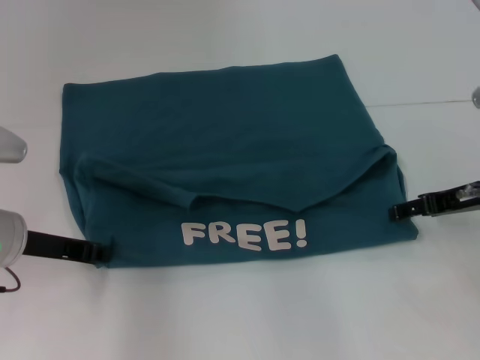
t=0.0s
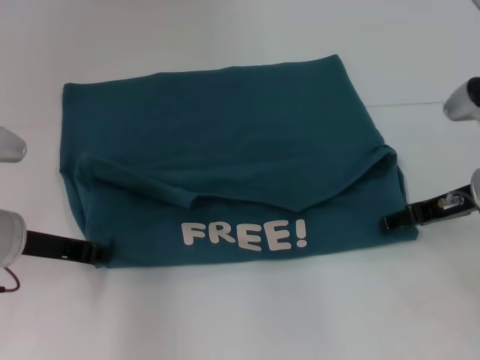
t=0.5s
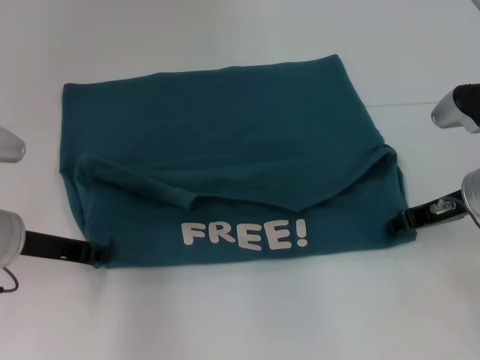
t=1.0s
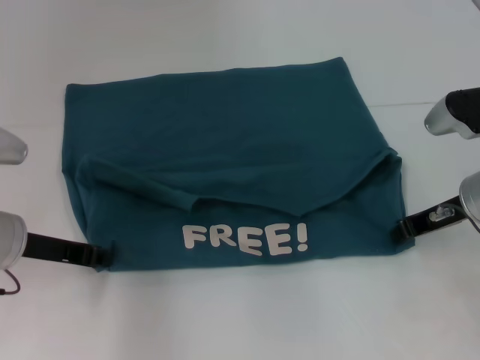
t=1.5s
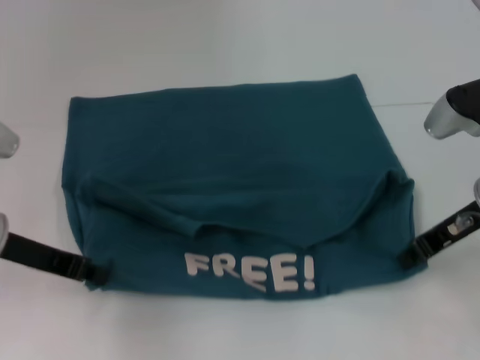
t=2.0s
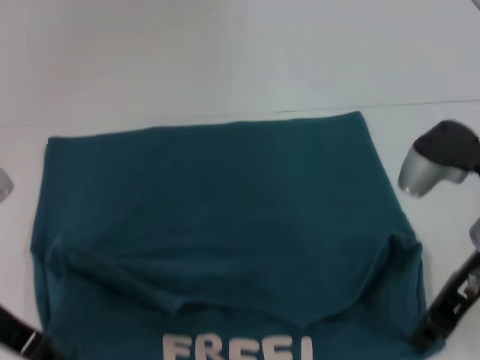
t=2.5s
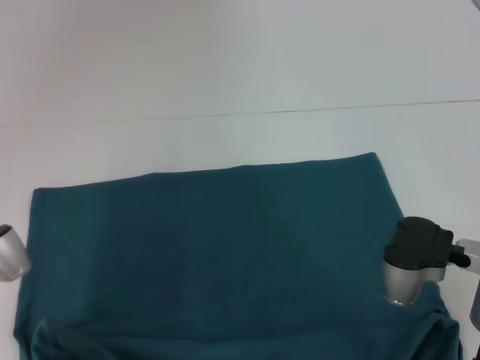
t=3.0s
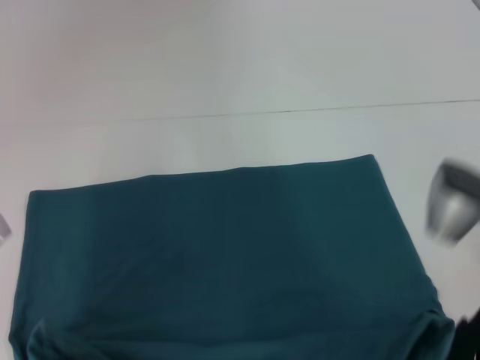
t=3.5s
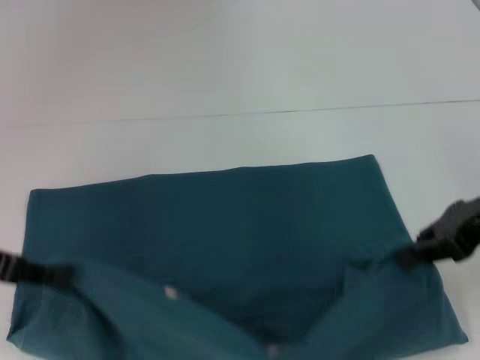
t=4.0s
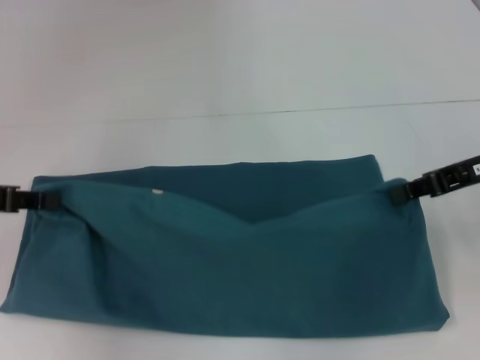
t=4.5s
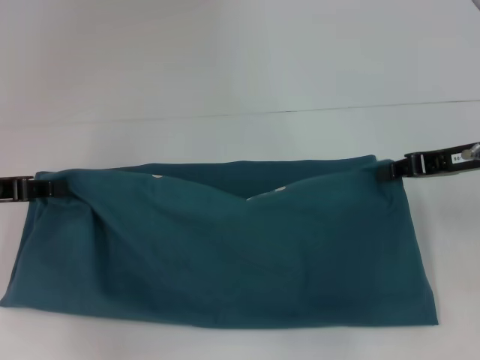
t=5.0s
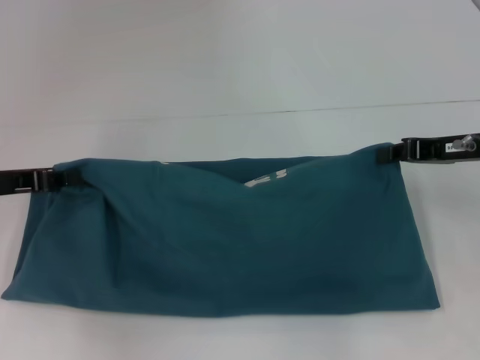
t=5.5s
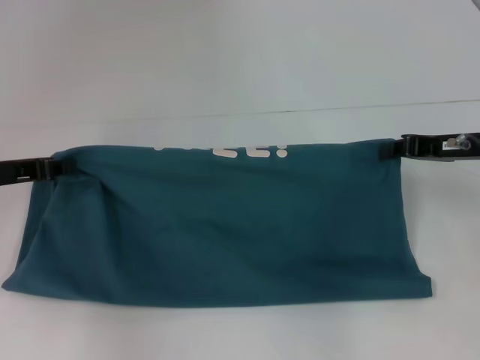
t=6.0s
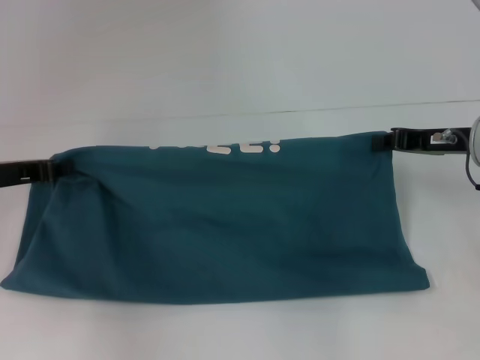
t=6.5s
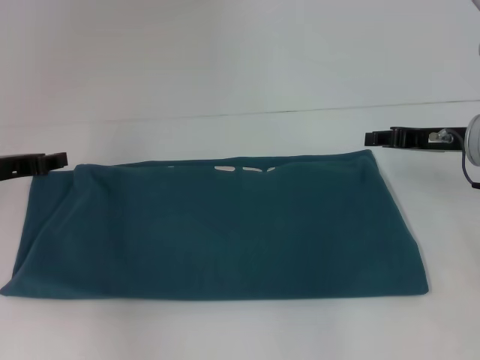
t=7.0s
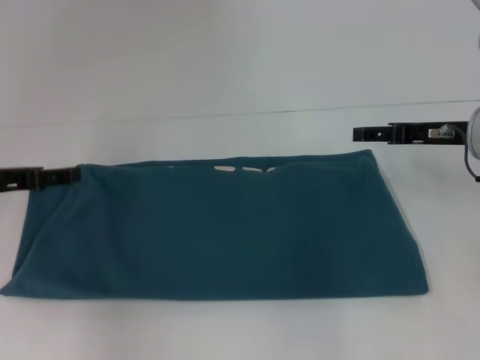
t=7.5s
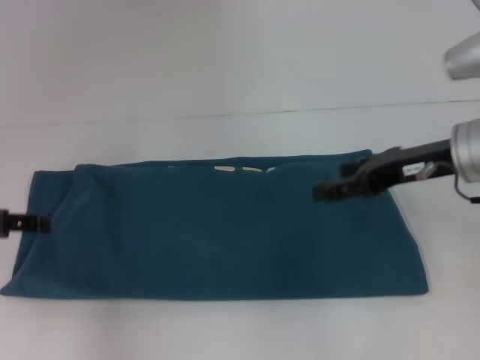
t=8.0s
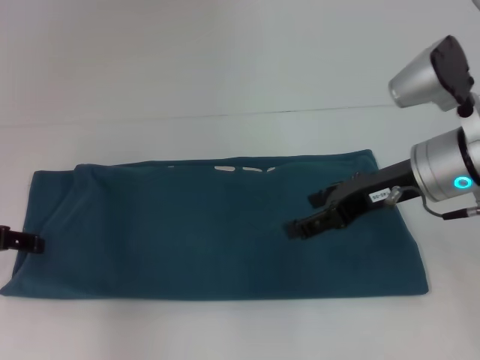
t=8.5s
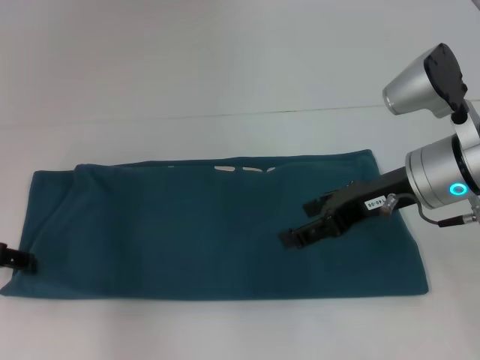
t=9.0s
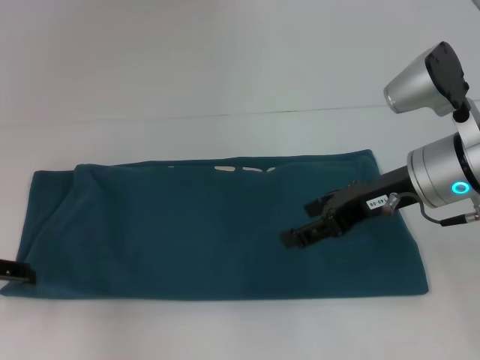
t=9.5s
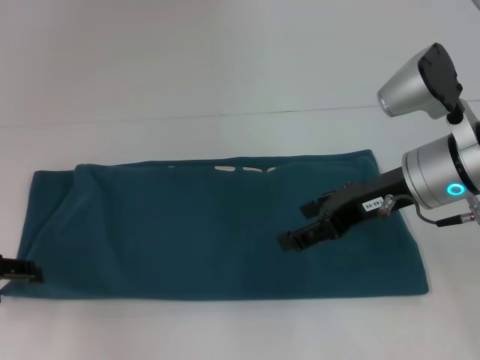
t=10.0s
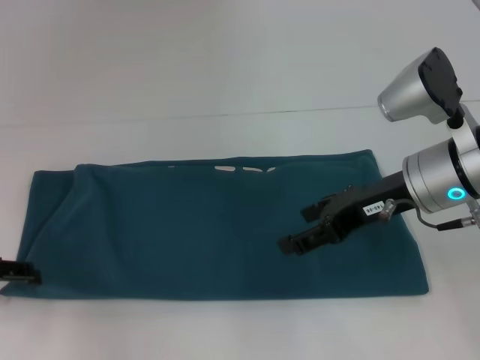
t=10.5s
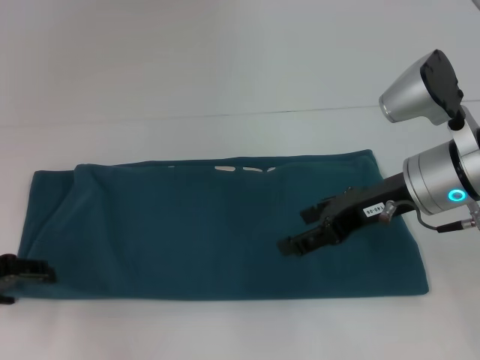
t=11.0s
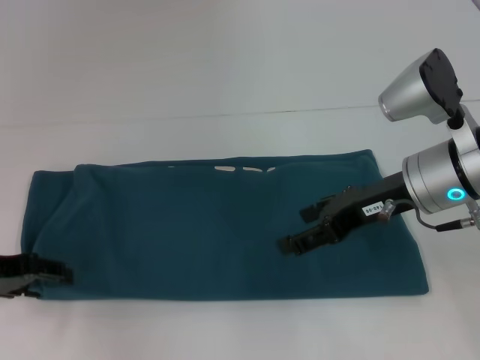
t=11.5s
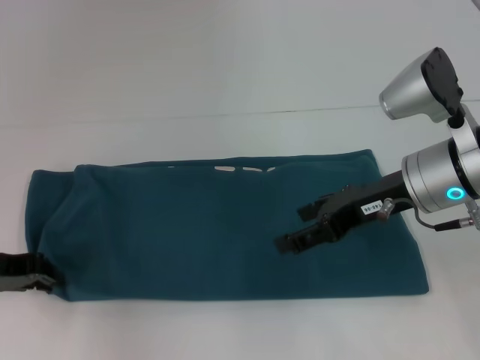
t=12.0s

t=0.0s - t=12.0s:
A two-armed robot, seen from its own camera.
Step, t=0.0s - t=2.0s: Pull the clothes with your left hand.
Step, t=0.0s - t=2.0s: Pull the clothes with your right hand.
Step, t=2.5s - t=6.5s: Fold the clothes to the left.
Step, t=2.5s - t=6.5s: Fold the clothes to the right.
t=0.0s - t=2.0s: The right gripper closes its fingers.
t=2.0s - t=4.0s: The right gripper travels upward by about 5 cm, while the left gripper heads to the left and upward, covering some 5 cm.
t=4.0s - t=6.0s: The left gripper heads forward, covering about 5 cm; the right gripper shifts approximately 10 cm downward and forward.
t=6.0s - t=8.0s: The right gripper goes roughly 5 cm to the left, and opens its fingers. The left gripper opens its fingers.
t=10.0s - t=12.0s: The left gripper closes up.

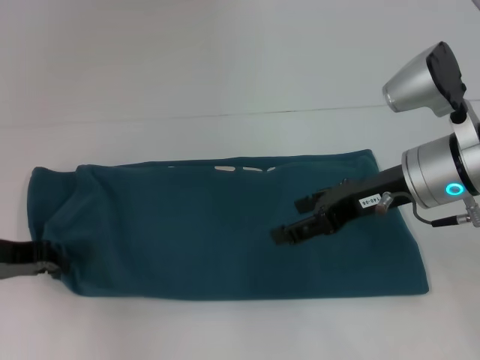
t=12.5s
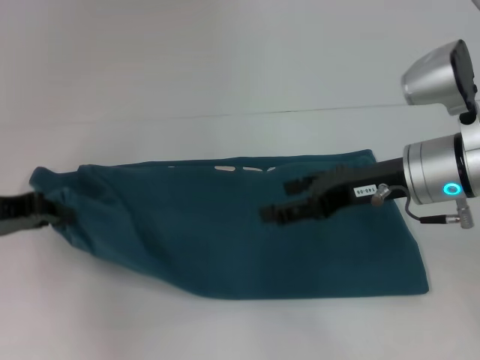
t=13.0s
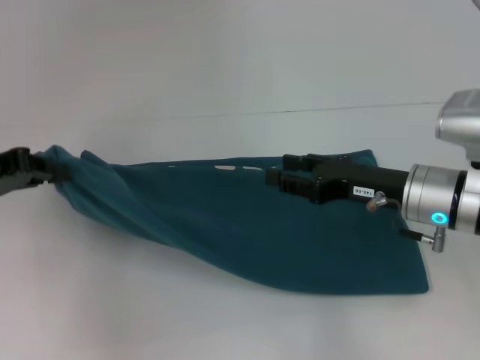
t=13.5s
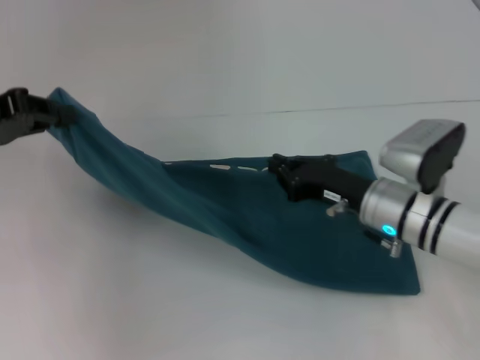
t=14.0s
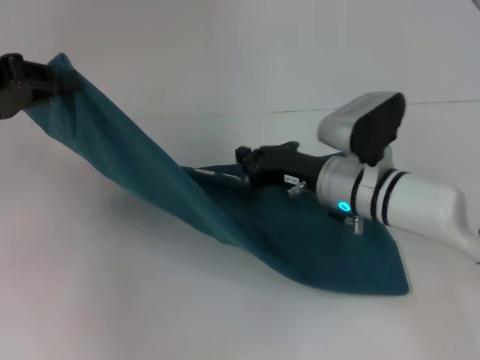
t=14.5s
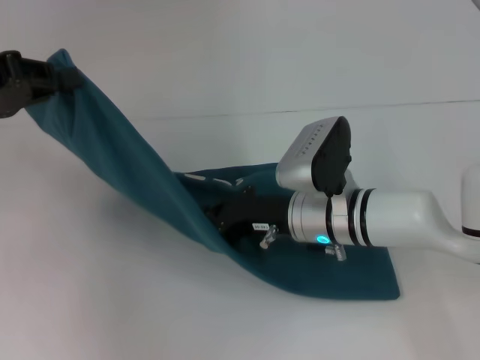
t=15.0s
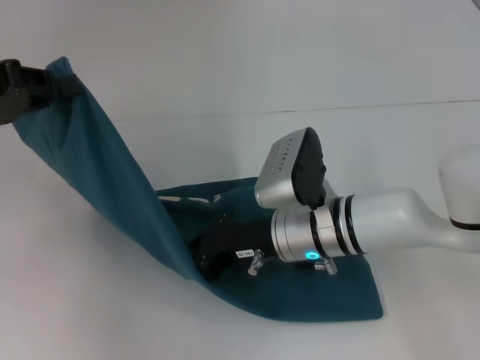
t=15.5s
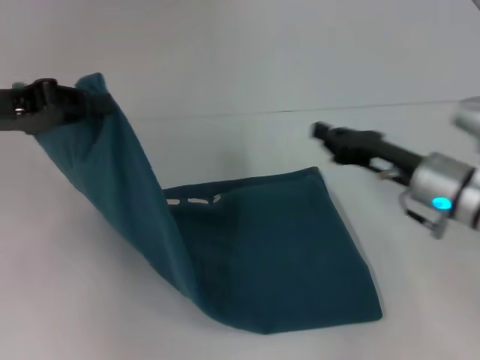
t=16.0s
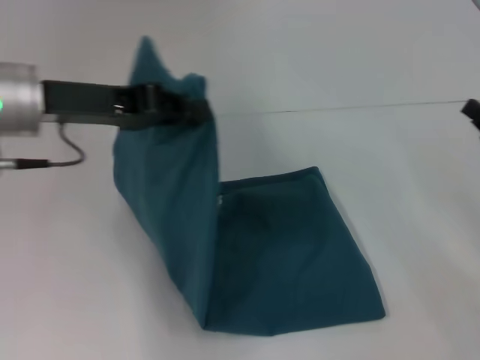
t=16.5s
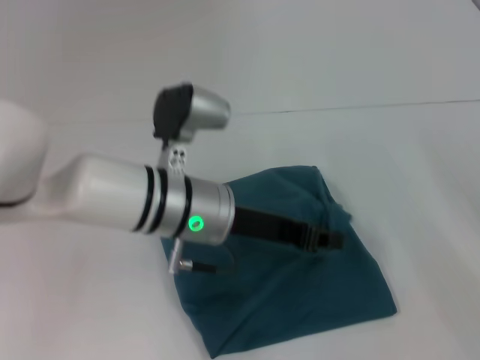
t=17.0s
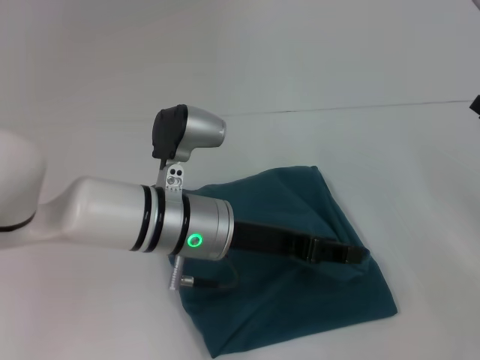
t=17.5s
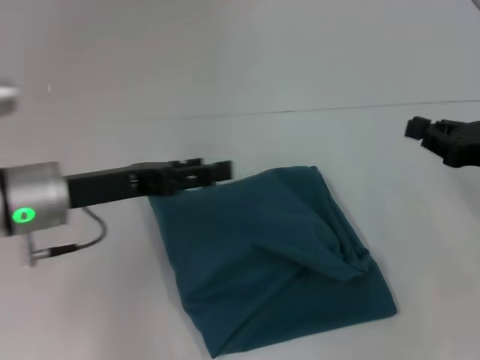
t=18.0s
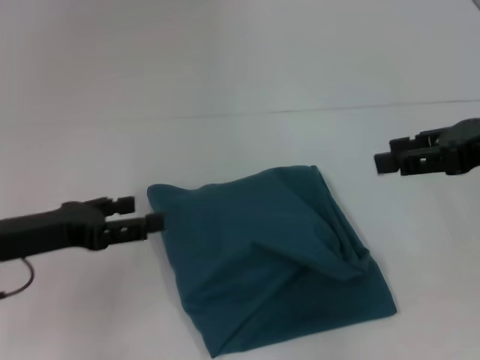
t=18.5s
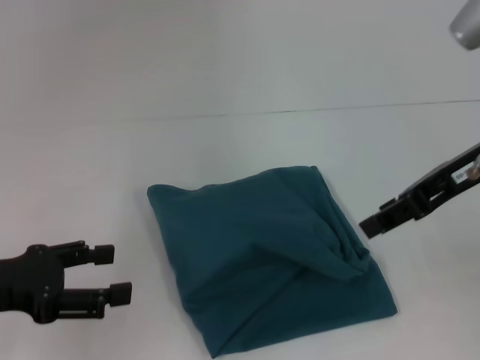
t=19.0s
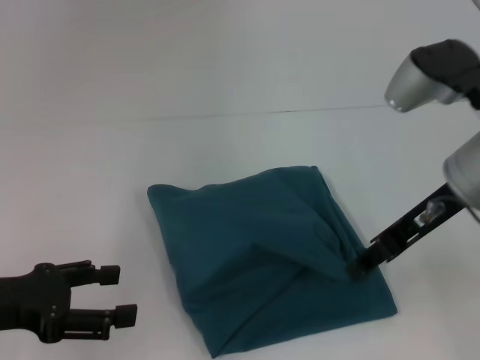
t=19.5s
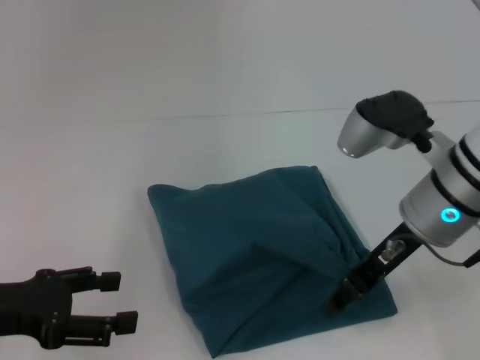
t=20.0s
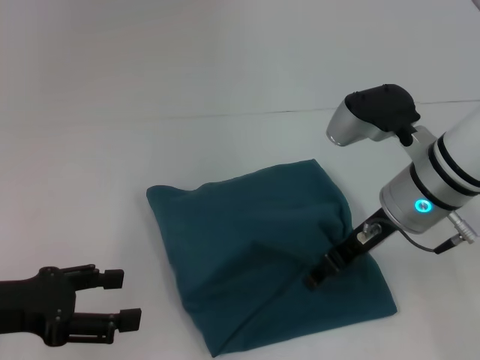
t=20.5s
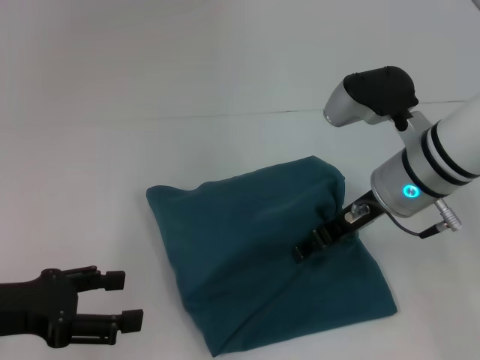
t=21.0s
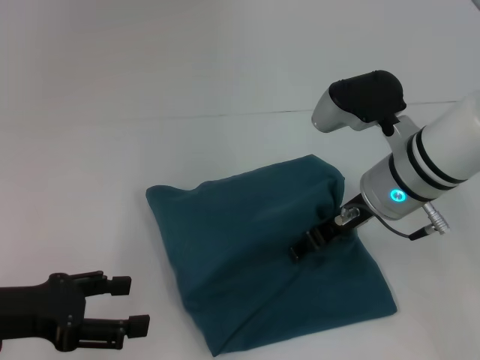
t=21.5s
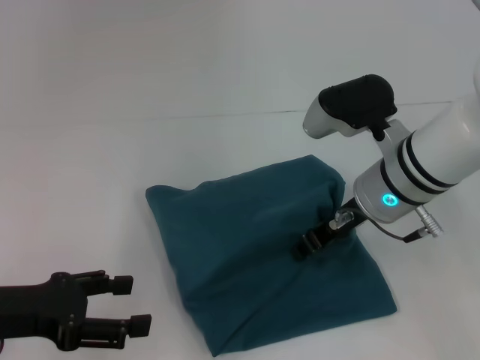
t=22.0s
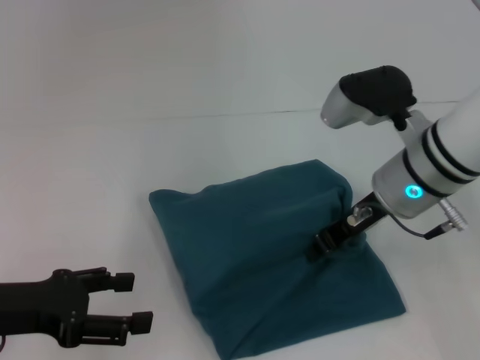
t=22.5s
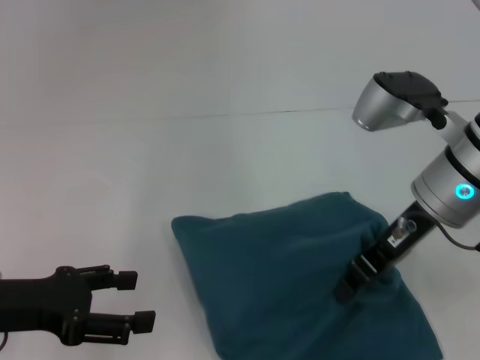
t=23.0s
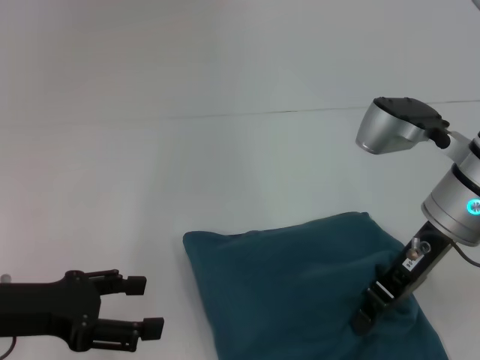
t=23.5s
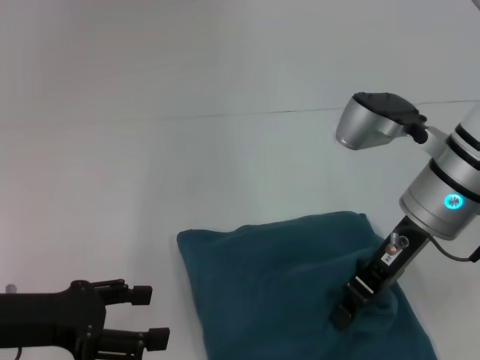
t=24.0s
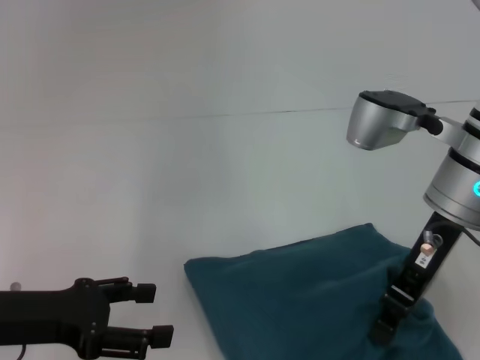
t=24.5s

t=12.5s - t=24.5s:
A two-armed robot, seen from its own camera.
Step, t=12.5s - t=15.5s: Press the middle of the clothes with your right hand.
Step, t=16.0s - t=17.5s: Fold the clothes to the left.
t=12.5s - t=14.5s: The left gripper goes about 10 cm upward. Meanwhile the right gripper heads downward and to the left, covering approximately 10 cm, and closes.
t=14.5s - t=16.5s: The left gripper travels to the right by approximately 10 cm. The right gripper goes about 20 cm to the right.
t=16.5s - t=18.5s: The left gripper is displaced downward and backward by approximately 15 cm, reaches about 15 cm to the right, then returns, and opens its fingers. Meanwhile the right gripper is displaced upward by roughly 15 cm, and opens up.
t=18.5s - t=20.5s: The right gripper moves to the left and downward, some 15 cm, while the left gripper shifts by about 5 cm.
t=20.5s - t=22.5s: The right gripper closes.

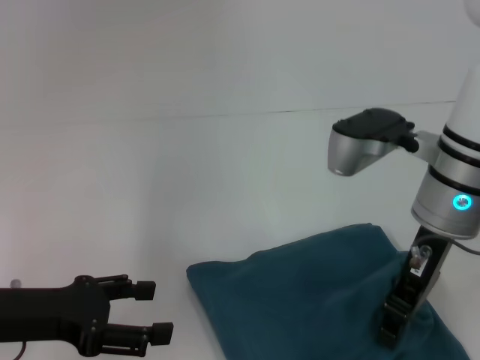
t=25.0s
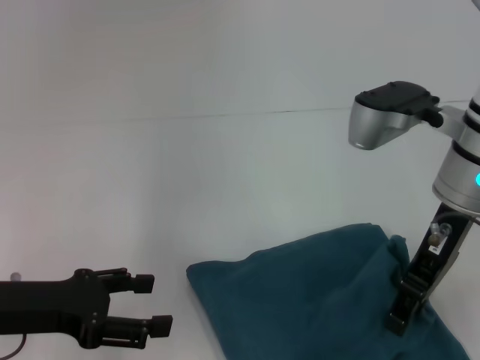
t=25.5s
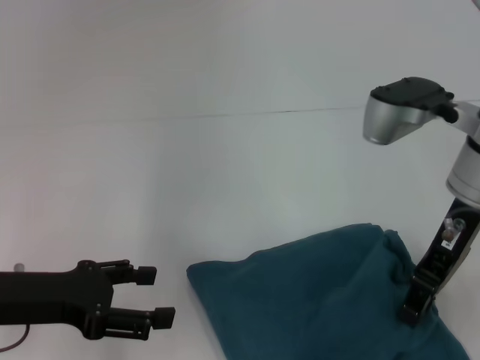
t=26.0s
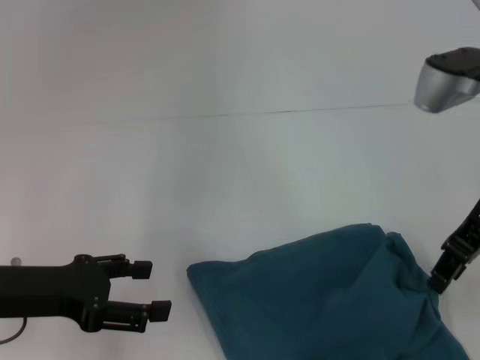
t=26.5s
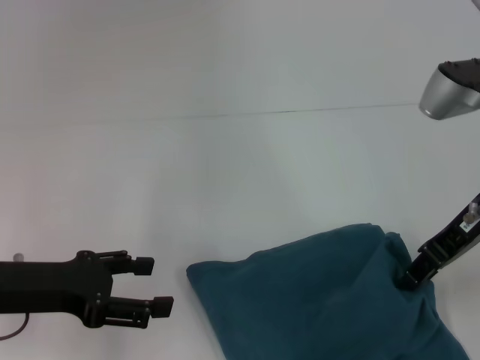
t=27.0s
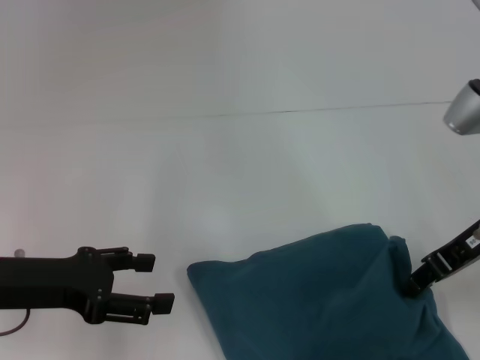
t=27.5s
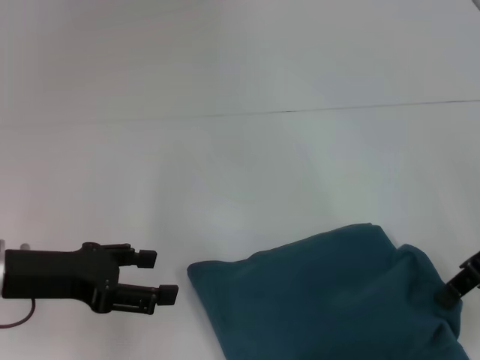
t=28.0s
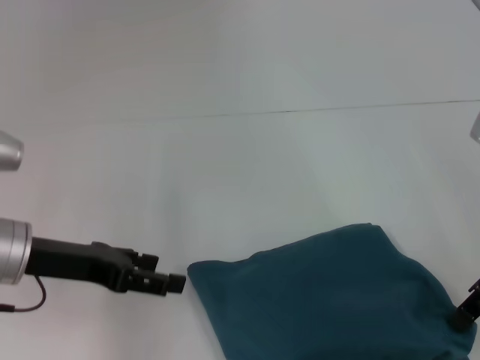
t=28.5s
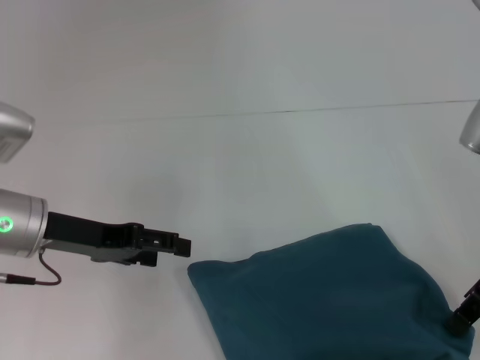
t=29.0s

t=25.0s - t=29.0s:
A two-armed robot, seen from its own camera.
t=25.0s - t=27.0s: The right gripper is displaced to the right by roughly 10 cm, and opens its fingers.
t=27.0s - t=29.0s: The right gripper closes; the left gripper is displaced forward by roughly 5 cm.
